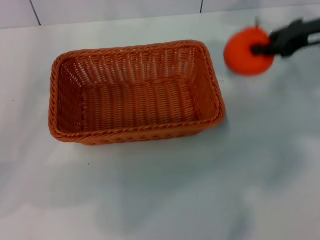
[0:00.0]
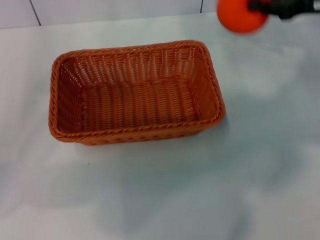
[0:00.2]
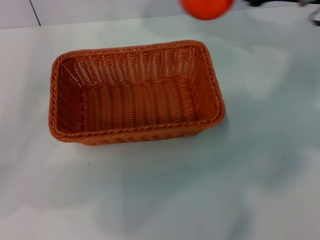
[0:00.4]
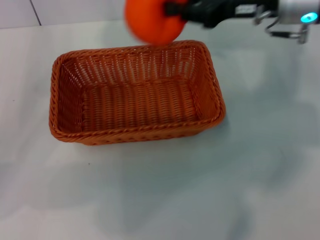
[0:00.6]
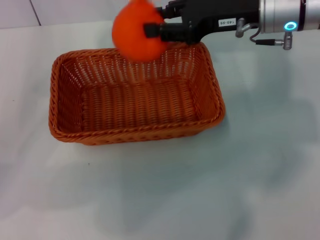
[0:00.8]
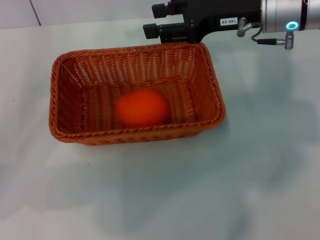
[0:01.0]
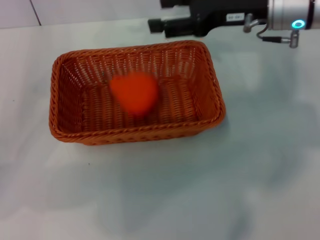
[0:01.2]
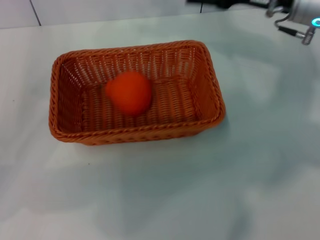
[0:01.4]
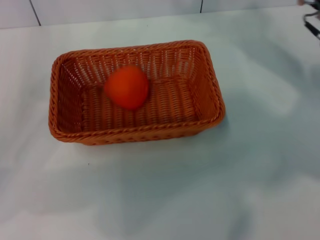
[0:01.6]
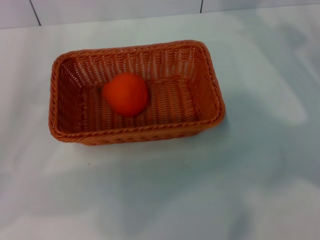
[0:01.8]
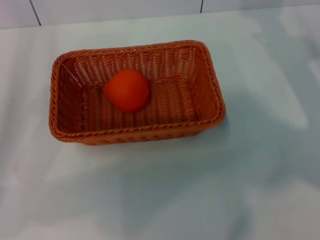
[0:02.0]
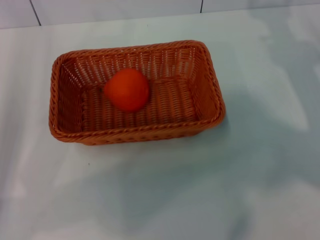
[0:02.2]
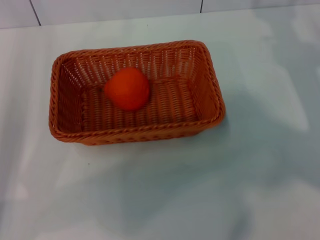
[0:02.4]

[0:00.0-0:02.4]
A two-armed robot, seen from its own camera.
Task of the whole recording: the left gripper pick up the yellow basket and place it horizontally in the middle of the table, the right gripper pick up the orange and place it into the yellow basket.
Step, 0:00.2 to 0:01.0: Place the orange into the light basket with the right gripper.
0:00.0 to 0:01.2: The right gripper goes about 10 cm to the left, and opens.
0:01.2 to 0:02.4: The right gripper is displaced to the right and downward by roughly 15 cm, and opens up.
